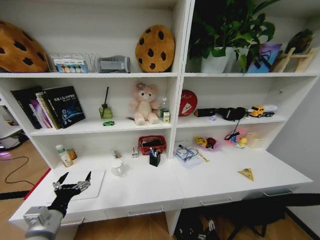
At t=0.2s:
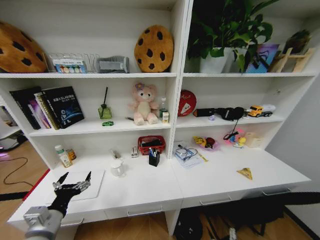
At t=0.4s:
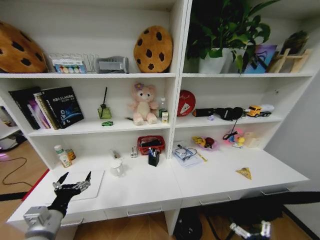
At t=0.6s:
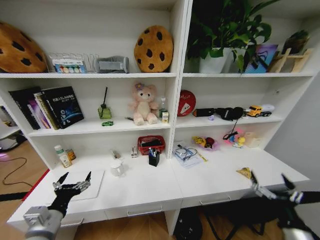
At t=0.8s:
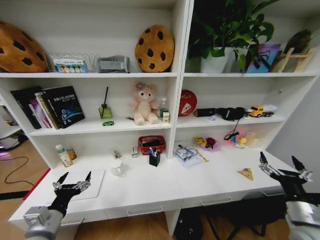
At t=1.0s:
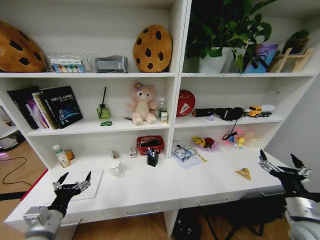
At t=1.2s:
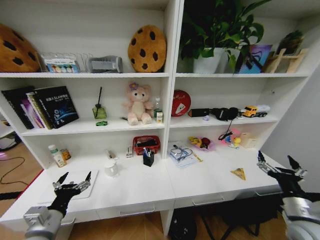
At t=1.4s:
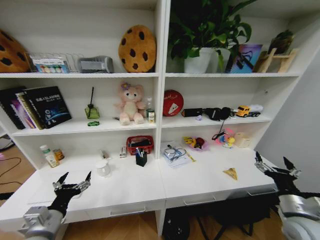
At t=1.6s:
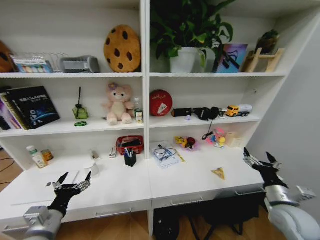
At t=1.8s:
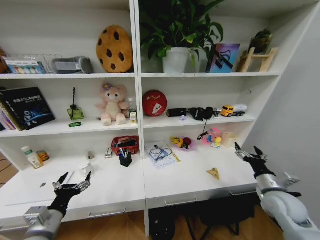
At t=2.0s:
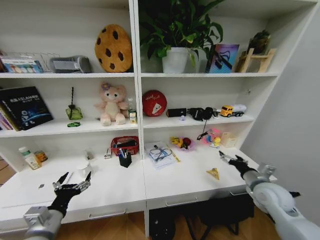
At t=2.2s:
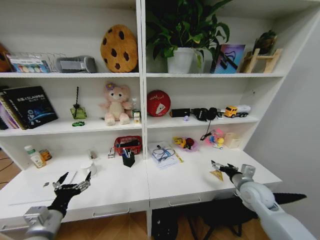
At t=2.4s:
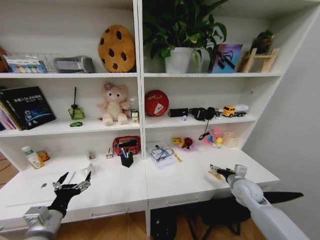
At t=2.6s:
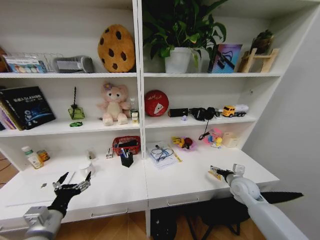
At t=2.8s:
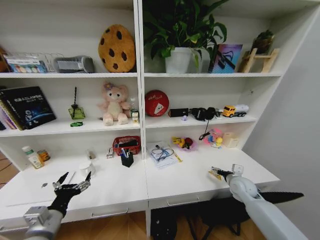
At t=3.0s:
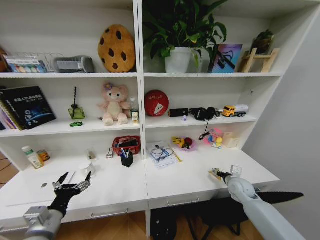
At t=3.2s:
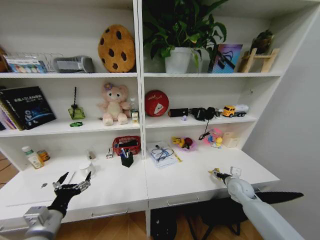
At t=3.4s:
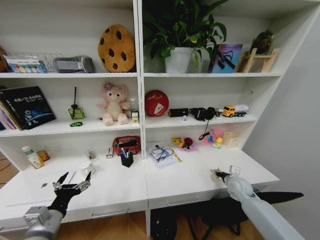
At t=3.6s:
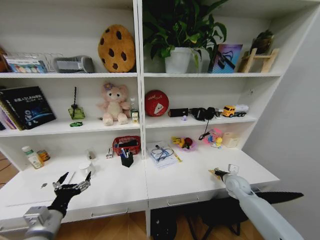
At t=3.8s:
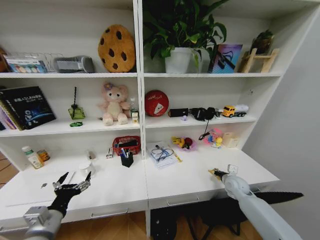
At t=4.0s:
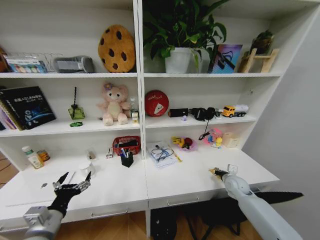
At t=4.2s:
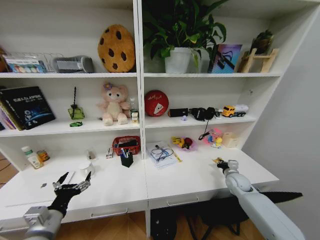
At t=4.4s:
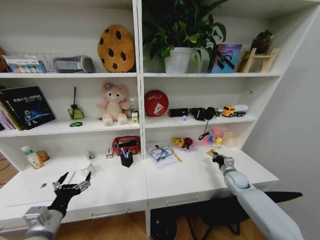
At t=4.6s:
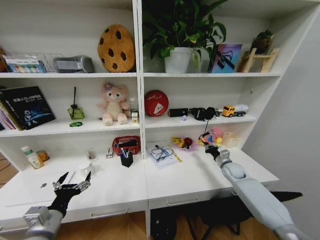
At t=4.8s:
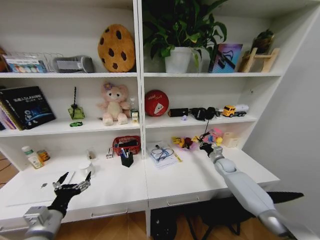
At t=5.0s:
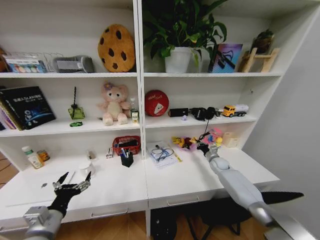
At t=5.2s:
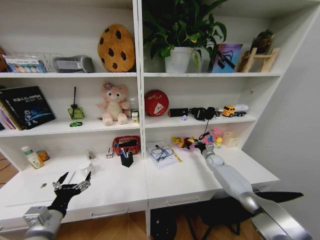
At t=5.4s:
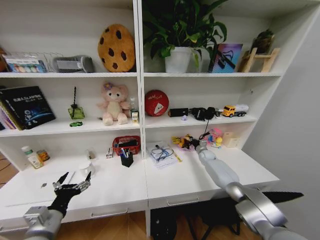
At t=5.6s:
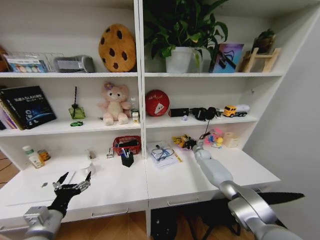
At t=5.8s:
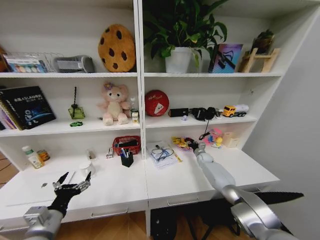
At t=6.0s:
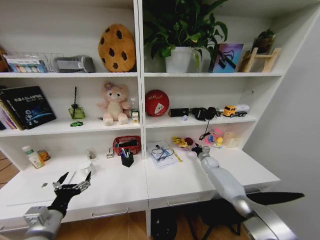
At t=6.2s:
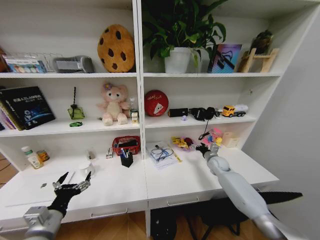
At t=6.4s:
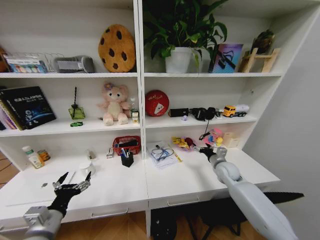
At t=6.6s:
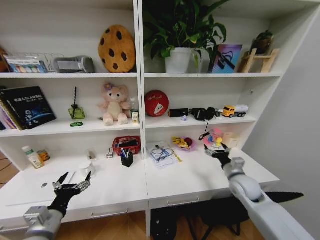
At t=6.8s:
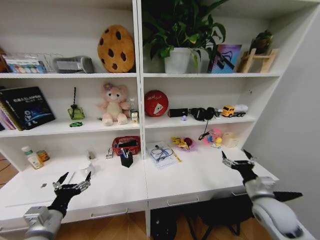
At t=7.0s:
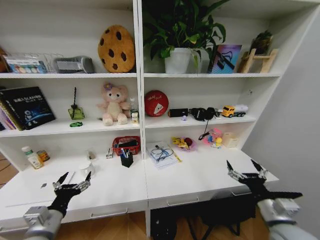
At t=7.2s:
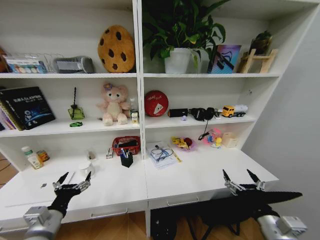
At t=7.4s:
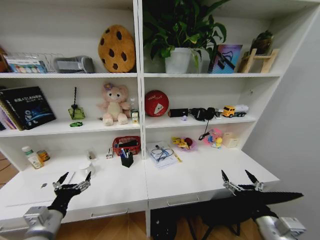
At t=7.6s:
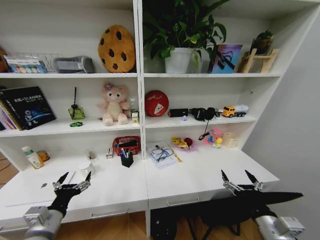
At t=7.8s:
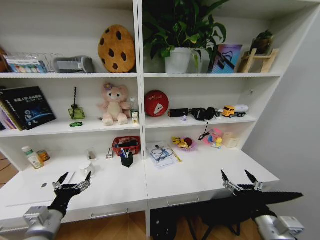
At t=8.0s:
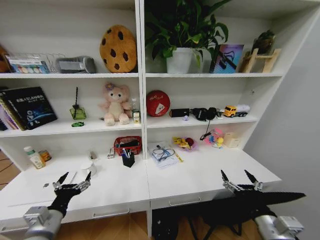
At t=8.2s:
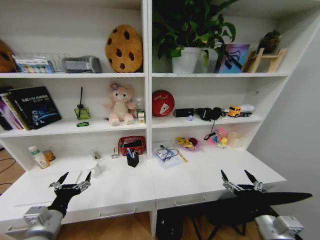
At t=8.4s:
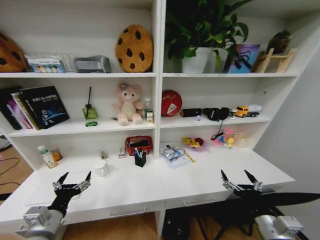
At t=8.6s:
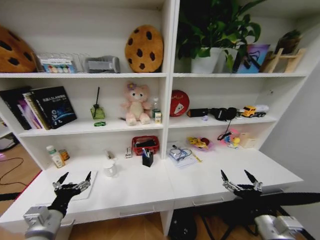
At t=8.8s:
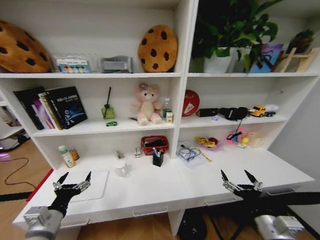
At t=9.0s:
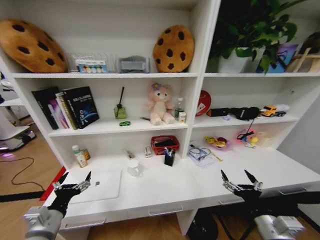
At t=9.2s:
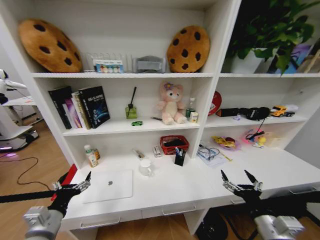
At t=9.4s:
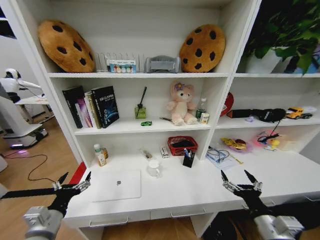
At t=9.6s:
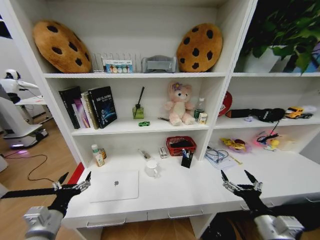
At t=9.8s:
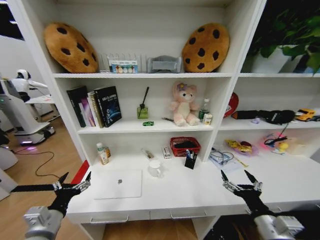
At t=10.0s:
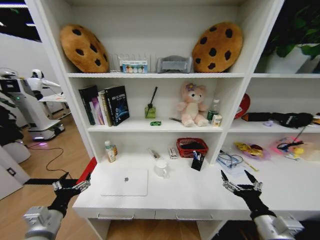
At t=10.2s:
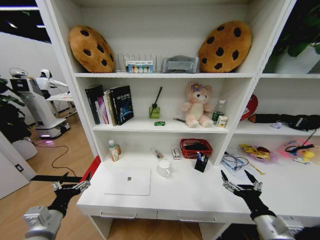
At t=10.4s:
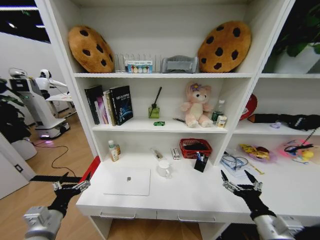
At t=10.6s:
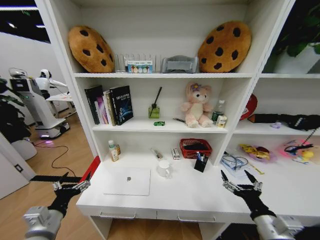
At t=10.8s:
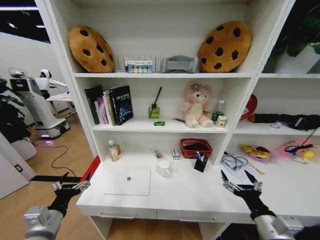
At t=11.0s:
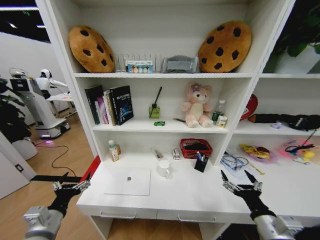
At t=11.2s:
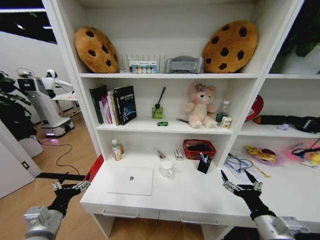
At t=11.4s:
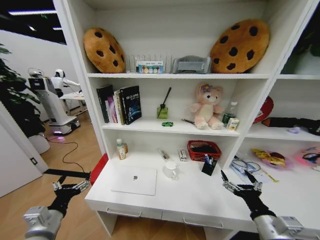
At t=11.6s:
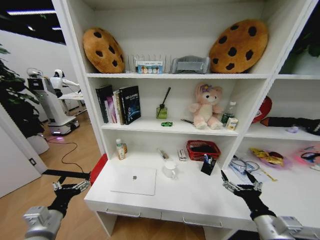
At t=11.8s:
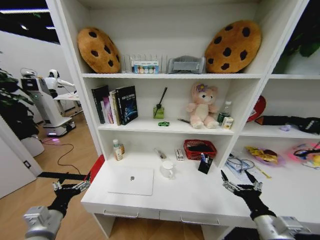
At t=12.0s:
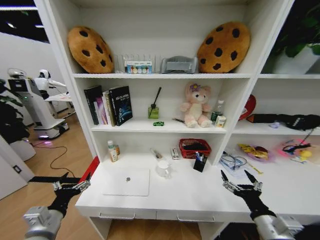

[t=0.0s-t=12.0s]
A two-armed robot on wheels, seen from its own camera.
Task of the whole recording: Organize the objects on the table.
t=0.0s to t=1.6s: The right gripper is displaced upward by roughly 40 cm.
t=1.6s to t=3.0s: The right gripper moves forward and downward, approximately 15 cm.
t=3.0s to t=4.4s: The right gripper is displaced forward by approximately 5 cm, and closes its fingers.
t=4.4s to t=6.0s: The right gripper goes some 15 cm forward and to the left, and opens up.
t=6.0s to t=7.6s: The right gripper goes about 40 cm backward, and opens its fingers.
t=10.4s to t=12.0s: Neither gripper changes place.
